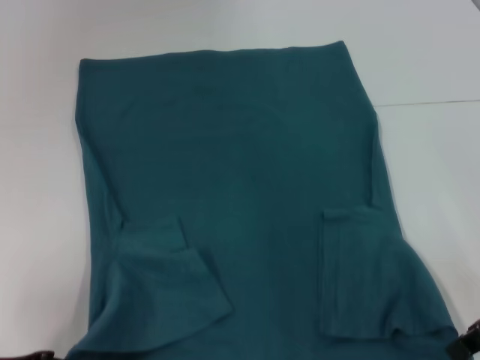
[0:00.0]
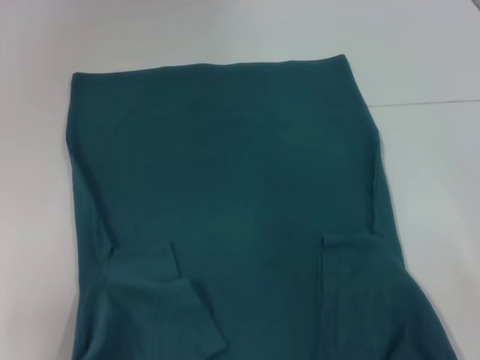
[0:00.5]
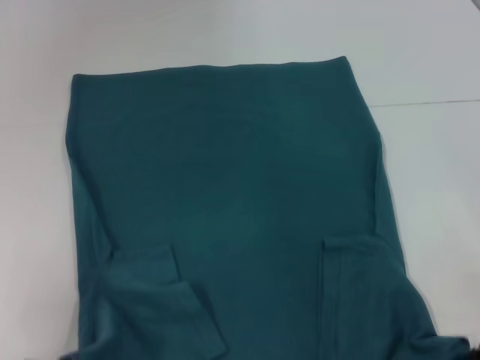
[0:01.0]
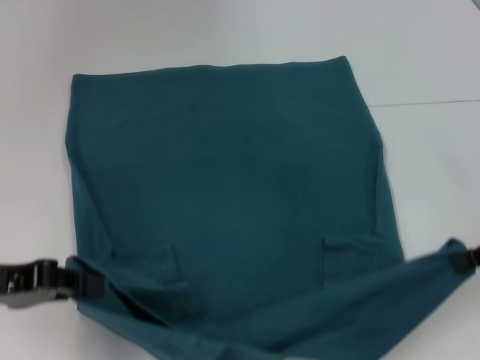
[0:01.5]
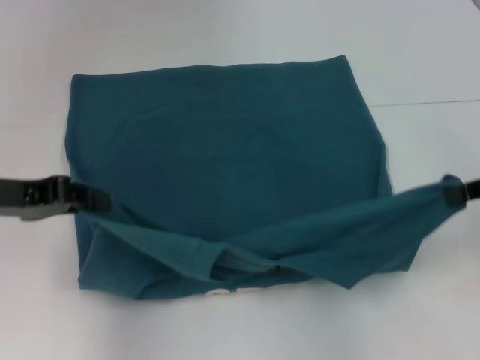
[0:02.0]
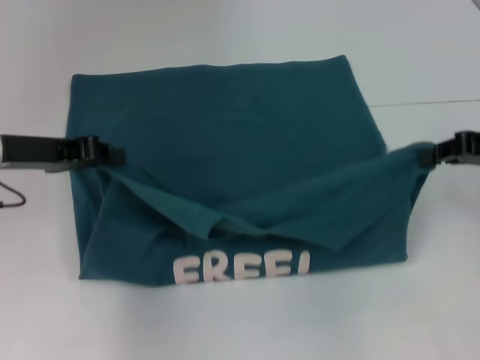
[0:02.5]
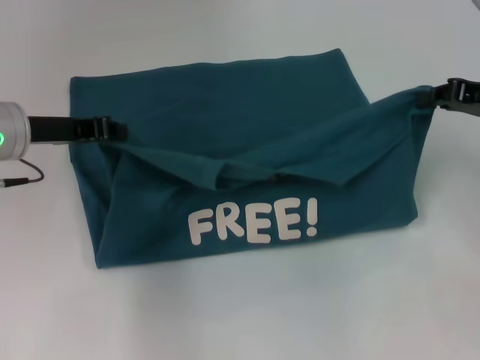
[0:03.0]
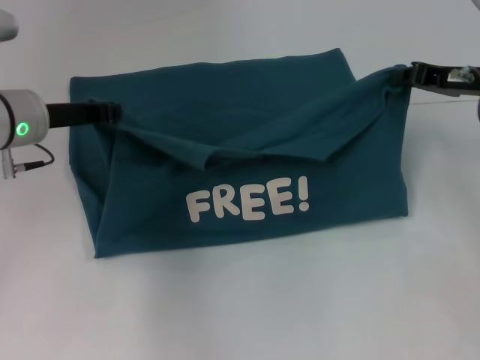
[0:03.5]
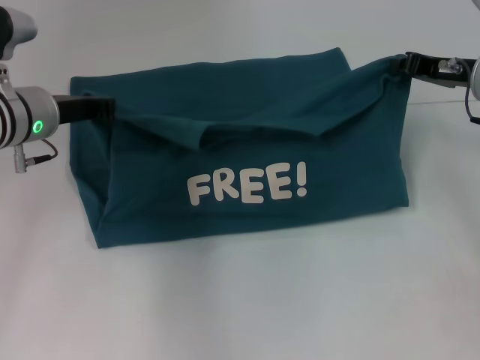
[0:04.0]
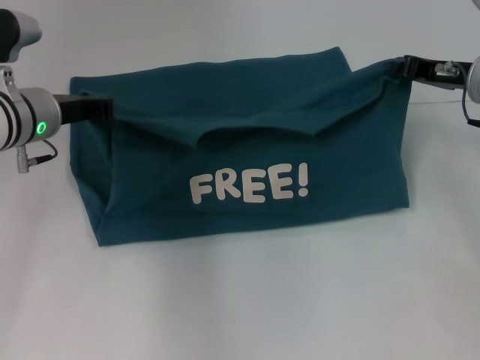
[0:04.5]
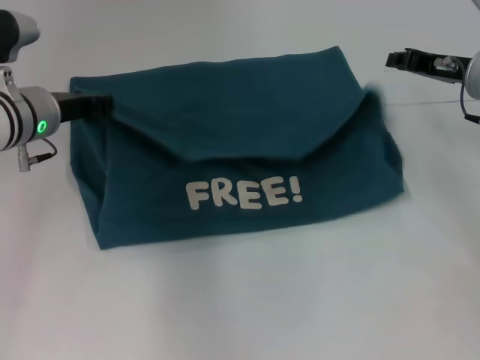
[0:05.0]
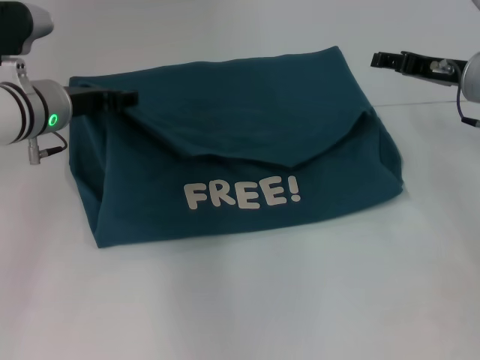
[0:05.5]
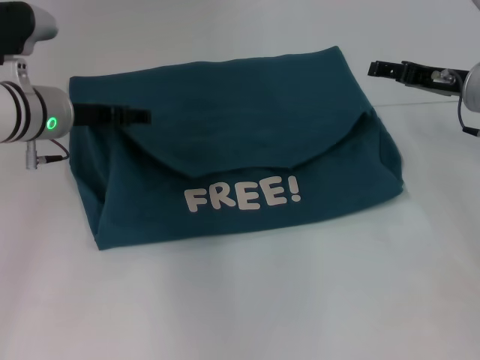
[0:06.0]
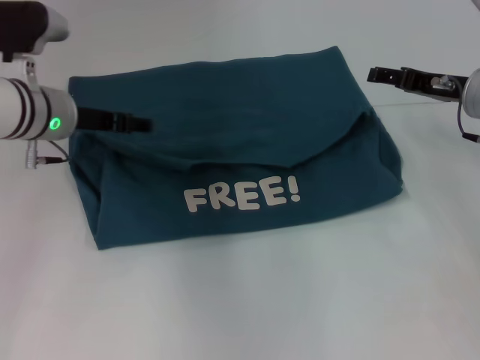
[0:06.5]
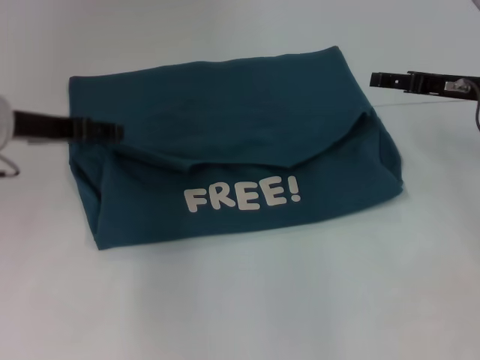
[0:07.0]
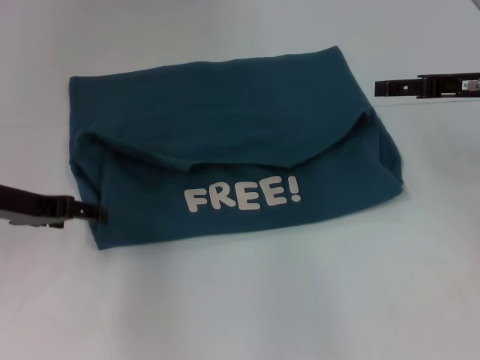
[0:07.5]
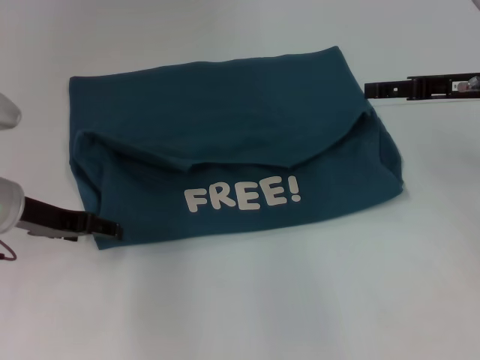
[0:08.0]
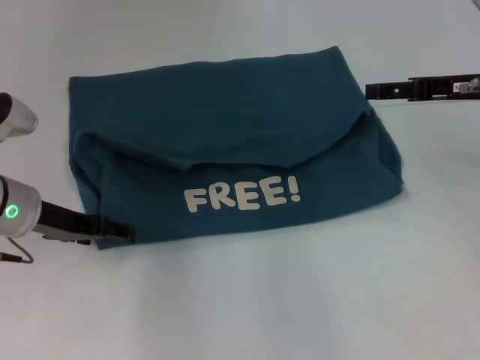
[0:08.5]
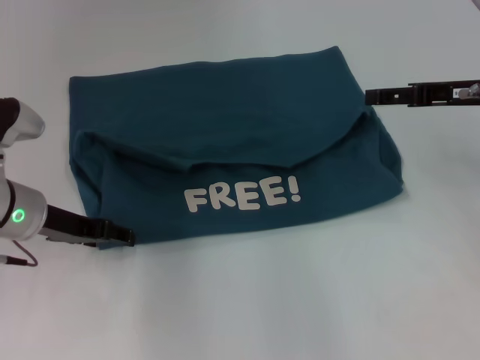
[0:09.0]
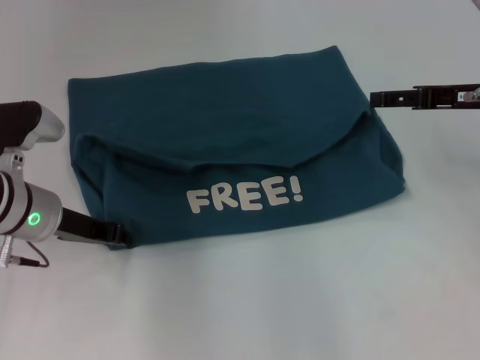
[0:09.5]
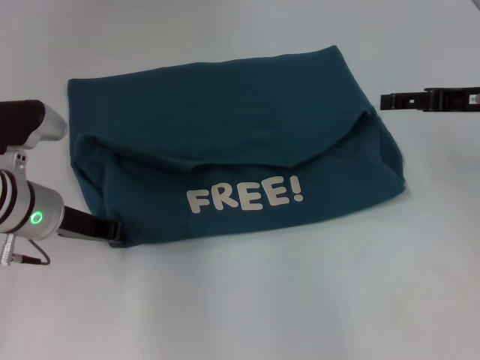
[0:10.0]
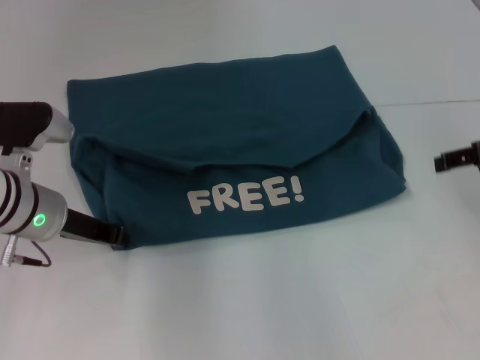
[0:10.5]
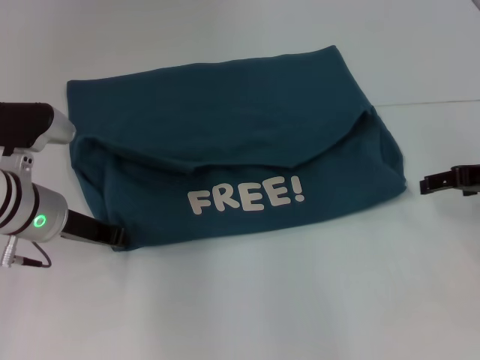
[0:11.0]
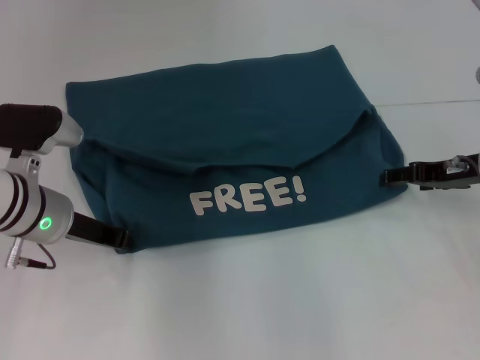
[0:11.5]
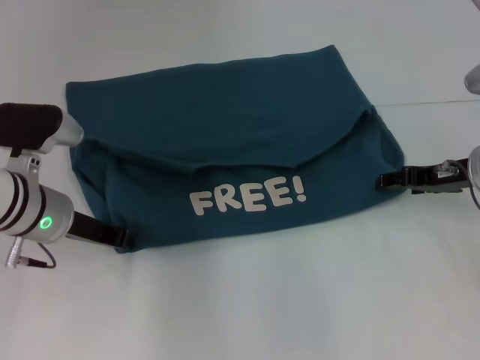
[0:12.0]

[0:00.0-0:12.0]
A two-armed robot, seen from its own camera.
Step, 0:00.0 to 0:06.5: Fold the clothes to the left.
Step, 0:00.0 to 0:06.5: Fold the clothes to the right.
0:00.0 to 0:02.0: The right gripper moves upward, about 5 cm, while the left gripper moves forward and upward, roughly 15 cm.
0:02.0 to 0:04.0: The left gripper heads forward and to the right, covering about 15 cm. The right gripper shifts approximately 15 cm forward.
0:04.0 to 0:06.0: The left gripper opens its fingers; the right gripper opens its fingers.
0:06.0 to 0:08.0: The right gripper shifts by approximately 5 cm, while the left gripper is displaced backward by about 5 cm.
0:08.0 to 0:10.0: The left gripper closes its fingers.
0:10.0 to 0:12.0: The right gripper is displaced downward by some 10 cm.

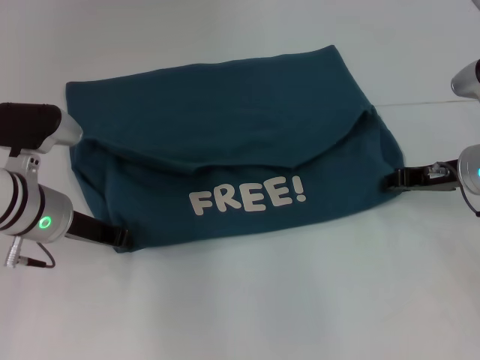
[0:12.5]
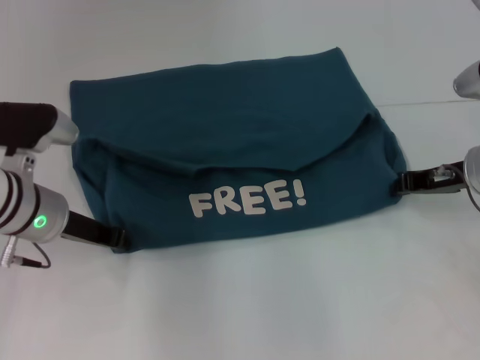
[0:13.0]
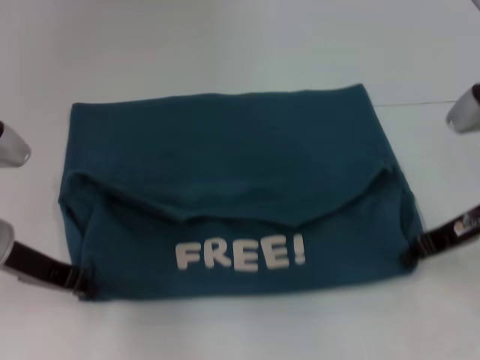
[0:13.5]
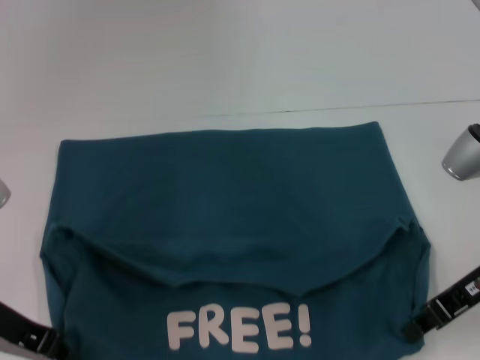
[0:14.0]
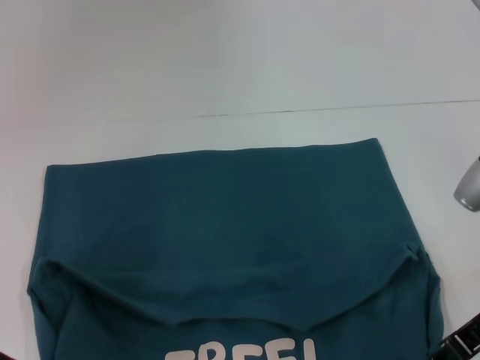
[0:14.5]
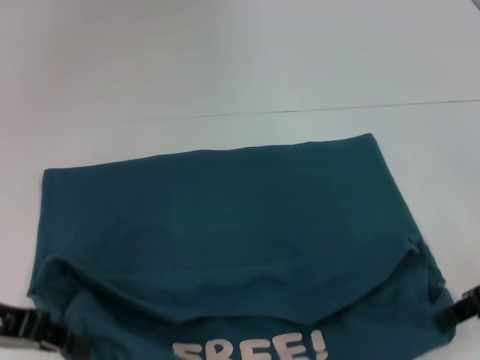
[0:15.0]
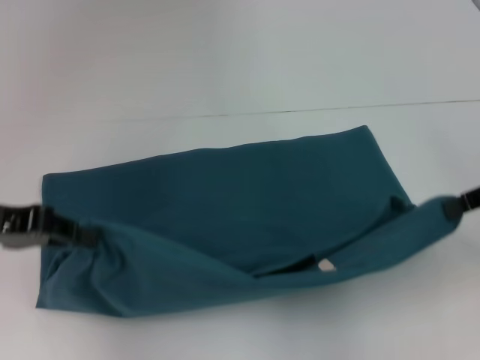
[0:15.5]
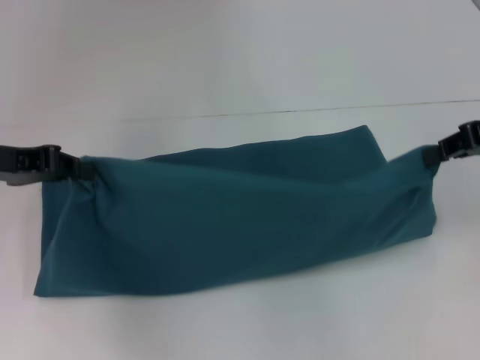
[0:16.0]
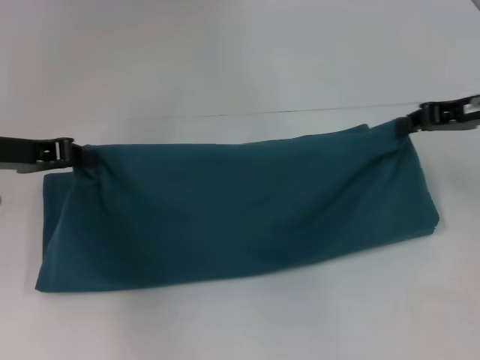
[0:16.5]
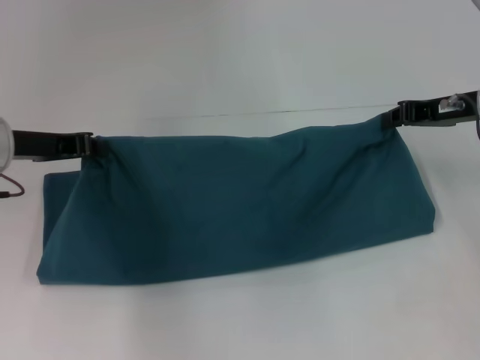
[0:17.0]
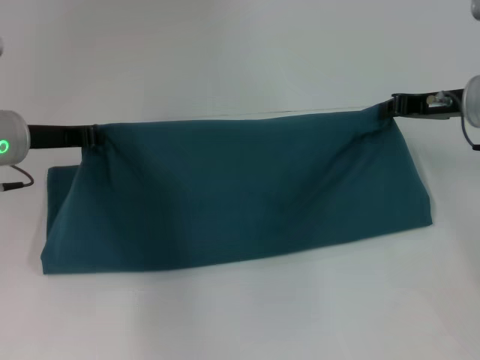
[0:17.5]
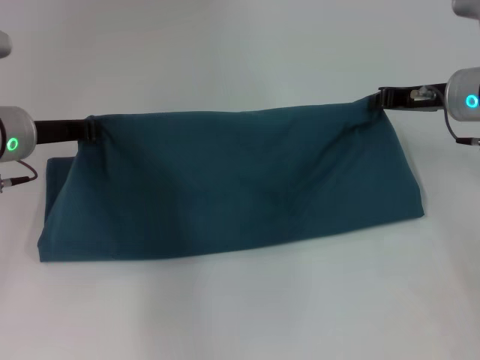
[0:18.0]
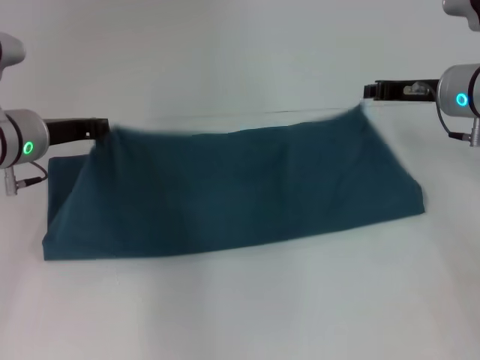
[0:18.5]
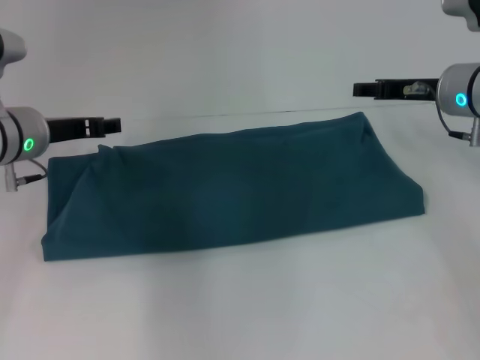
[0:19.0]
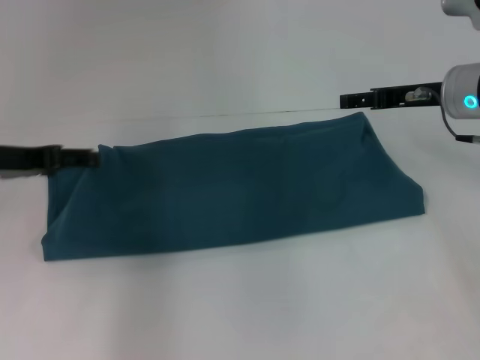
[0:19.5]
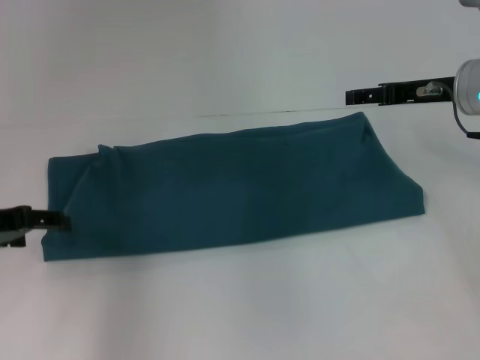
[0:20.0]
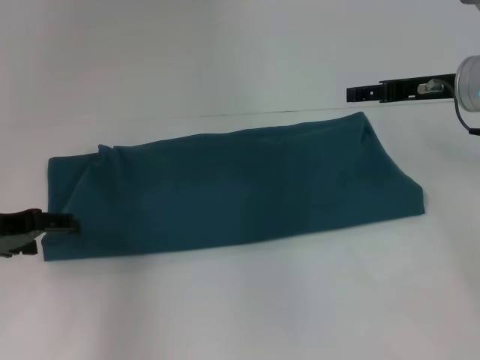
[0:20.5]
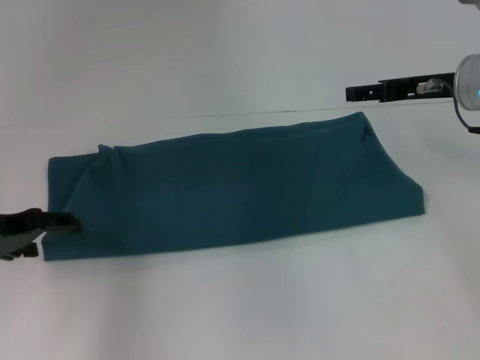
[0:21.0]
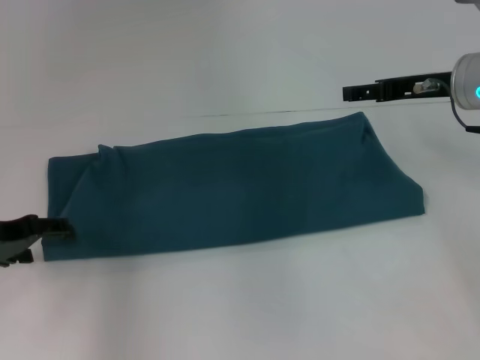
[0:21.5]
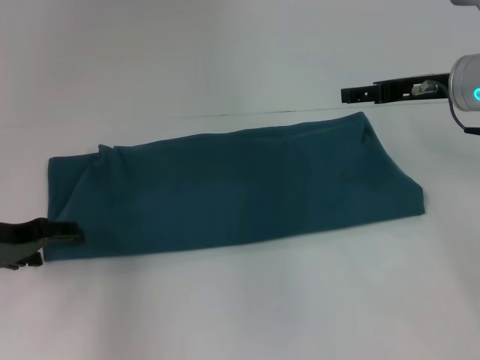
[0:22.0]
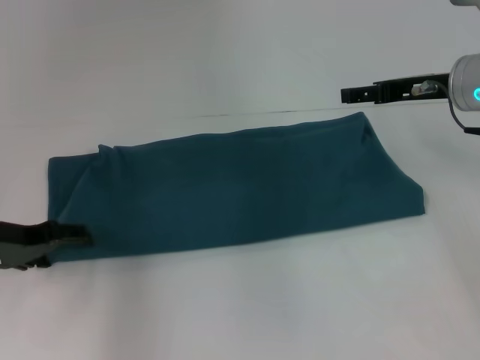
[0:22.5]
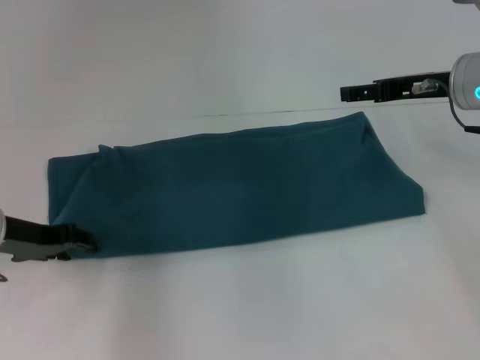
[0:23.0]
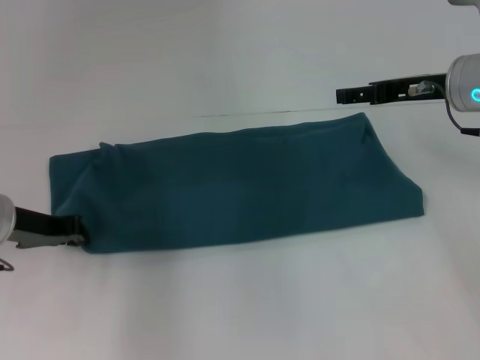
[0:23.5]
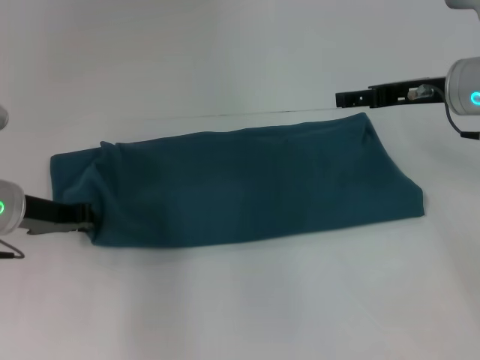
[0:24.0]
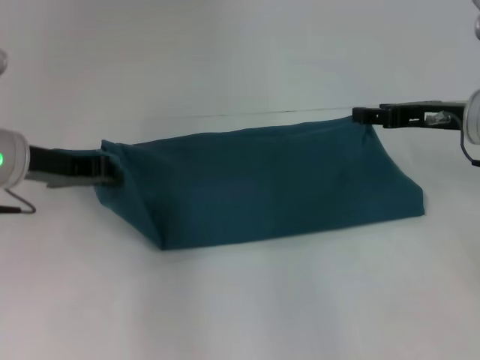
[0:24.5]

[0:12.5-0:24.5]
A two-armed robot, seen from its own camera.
Step, 0:12.5 to 0:14.5: Pull the clothes with your left hand.
Step, 0:12.5 to 0:14.5: Pull the clothes with your right hand.
Step, 0:15.0 to 0:18.5: Fold the clothes to the left.
Step, 0:15.0 to 0:18.5: Fold the clothes to the right.
0:12.5 to 0:14.5: The right gripper shifts about 10 cm backward, and closes; the left gripper shifts roughly 15 cm backward and to the left.
0:14.5 to 0:16.5: The left gripper moves forward, approximately 10 cm. Meanwhile the right gripper goes roughly 15 cm forward and upward.
0:16.5 to 0:18.5: The left gripper shifts about 5 cm to the right. Meanwhile the right gripper moves roughly 10 cm.
0:18.5 to 0:20.5: The right gripper opens, while the left gripper moves backward and to the left, roughly 10 cm, and opens its fingers.
0:20.5 to 0:22.5: The grippers make only small movements.
0:22.5 to 0:24.5: The left gripper heads upward, covering approximately 5 cm, and closes its fingers.

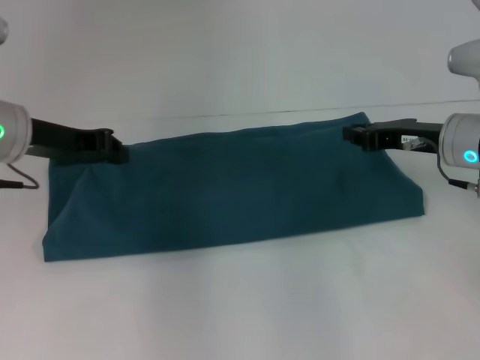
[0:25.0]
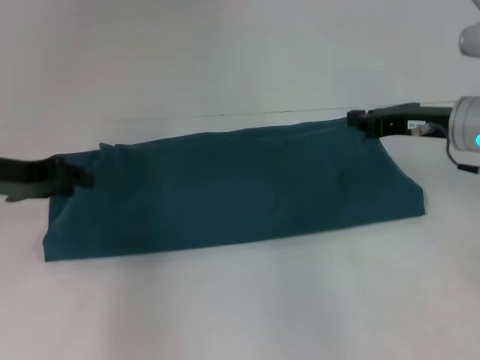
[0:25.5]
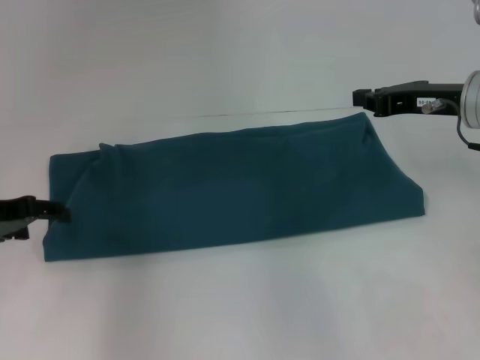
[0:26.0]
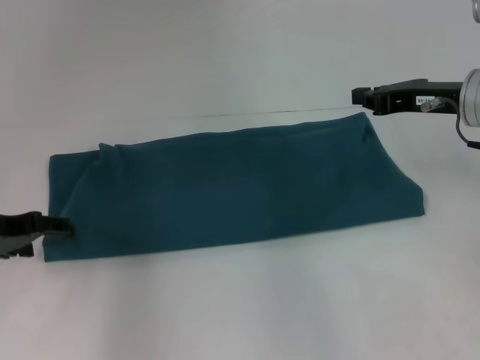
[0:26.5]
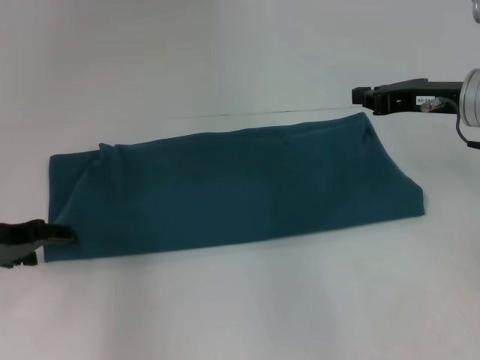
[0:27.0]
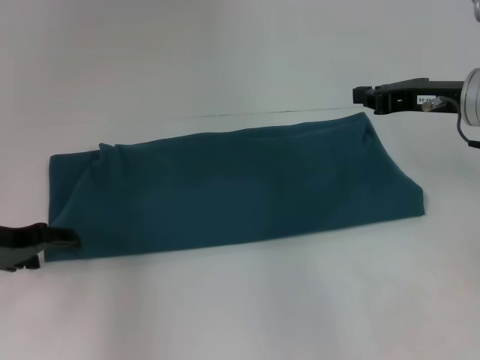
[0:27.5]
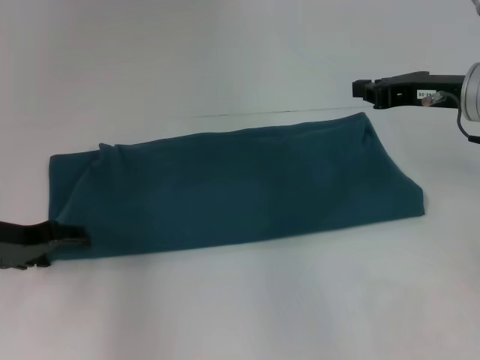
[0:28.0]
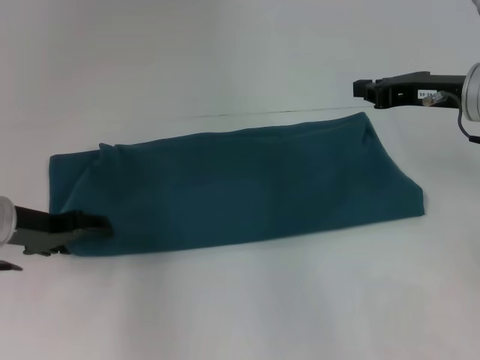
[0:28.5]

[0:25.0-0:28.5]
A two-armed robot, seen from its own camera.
0:25.0 to 0:27.0: The left gripper moves downward, to the left and backward, approximately 10 cm, and opens its fingers. Meanwhile the right gripper heads upward, covering approximately 5 cm.
0:27.0 to 0:28.5: There are only small adjustments of the grippers.
